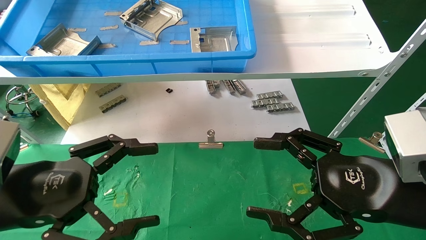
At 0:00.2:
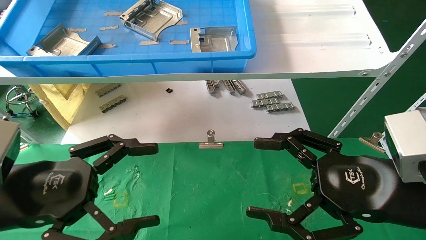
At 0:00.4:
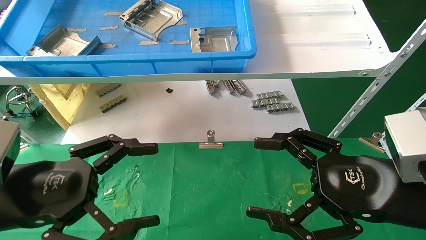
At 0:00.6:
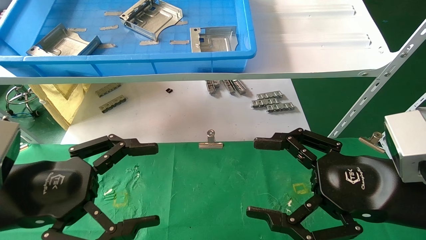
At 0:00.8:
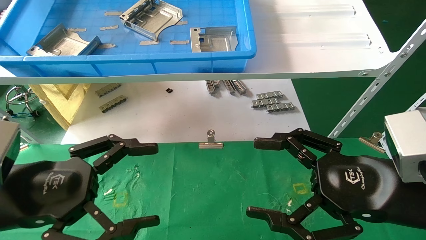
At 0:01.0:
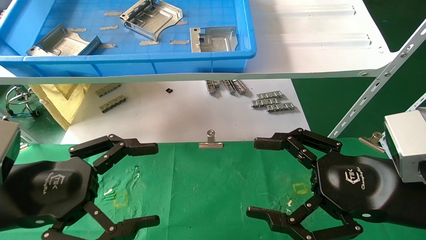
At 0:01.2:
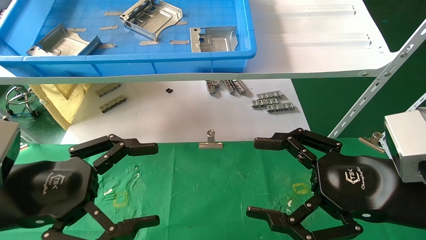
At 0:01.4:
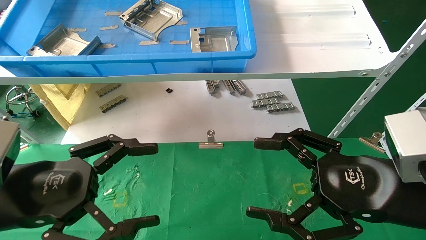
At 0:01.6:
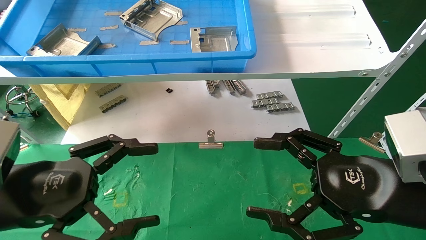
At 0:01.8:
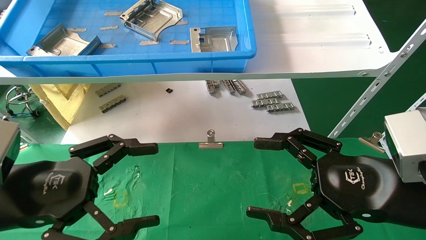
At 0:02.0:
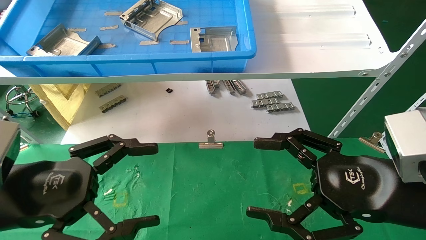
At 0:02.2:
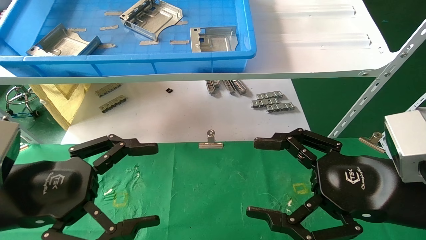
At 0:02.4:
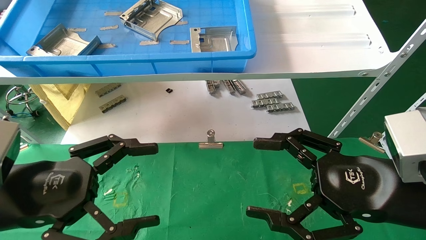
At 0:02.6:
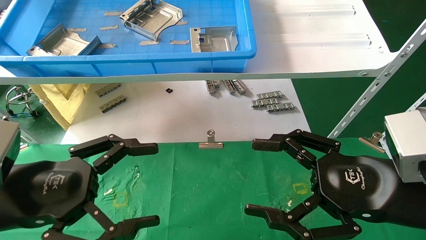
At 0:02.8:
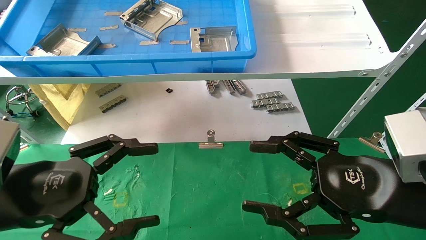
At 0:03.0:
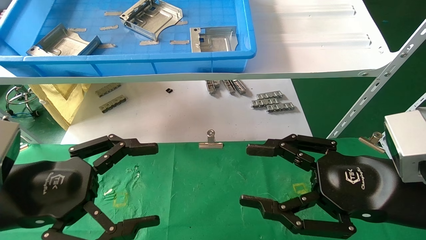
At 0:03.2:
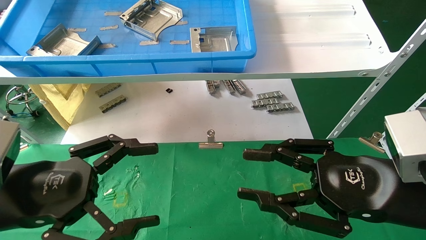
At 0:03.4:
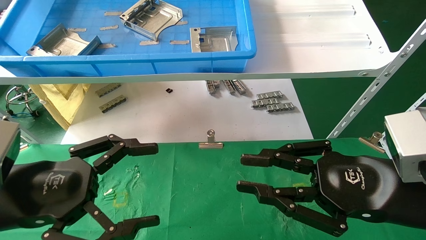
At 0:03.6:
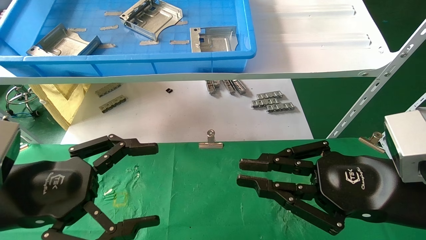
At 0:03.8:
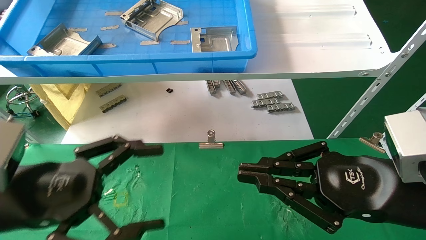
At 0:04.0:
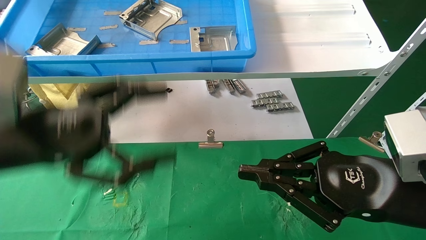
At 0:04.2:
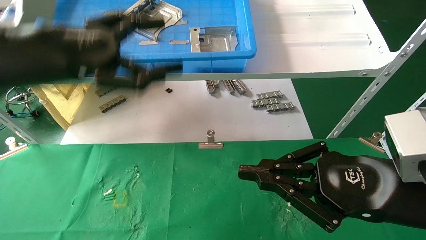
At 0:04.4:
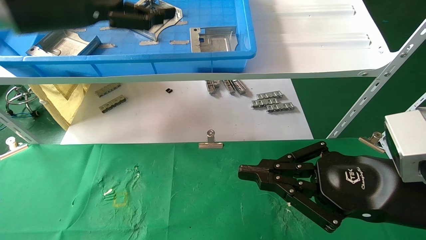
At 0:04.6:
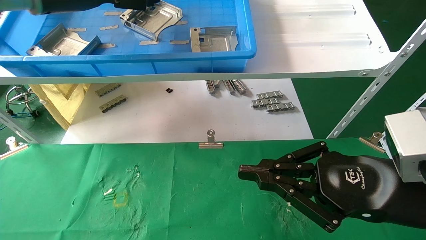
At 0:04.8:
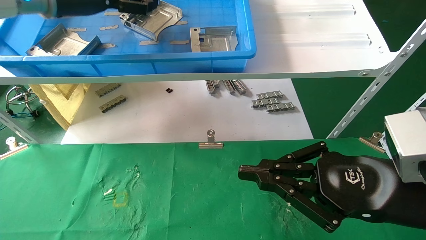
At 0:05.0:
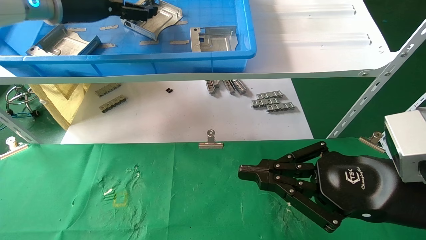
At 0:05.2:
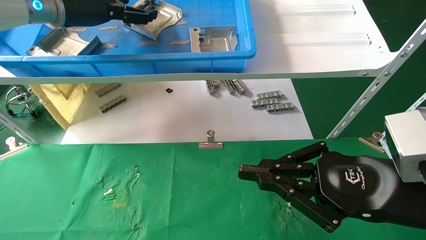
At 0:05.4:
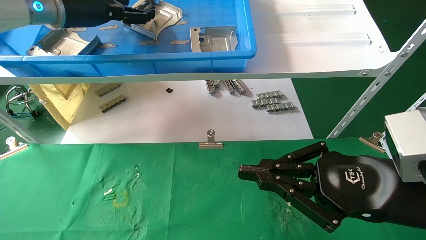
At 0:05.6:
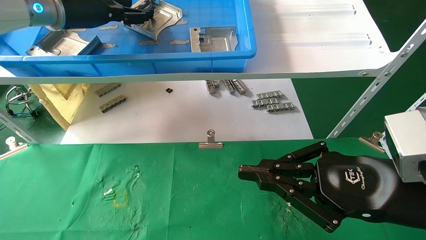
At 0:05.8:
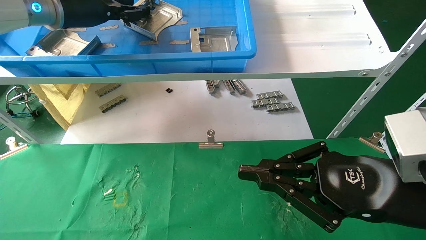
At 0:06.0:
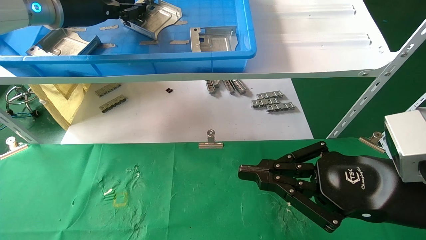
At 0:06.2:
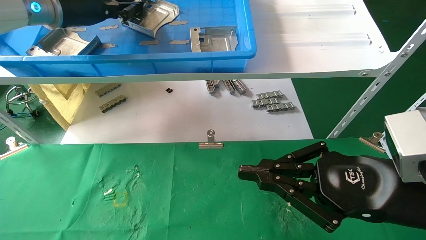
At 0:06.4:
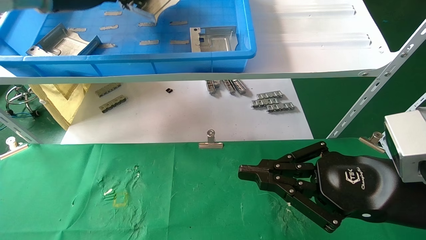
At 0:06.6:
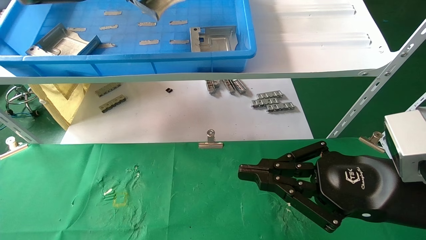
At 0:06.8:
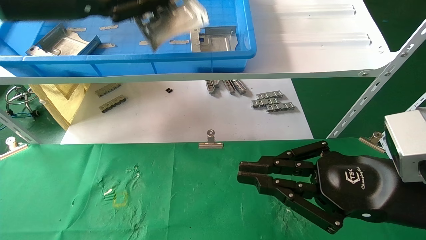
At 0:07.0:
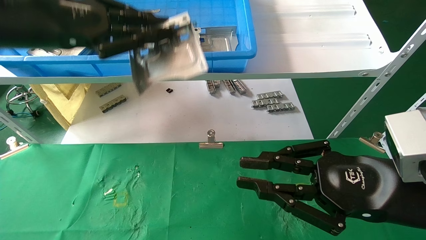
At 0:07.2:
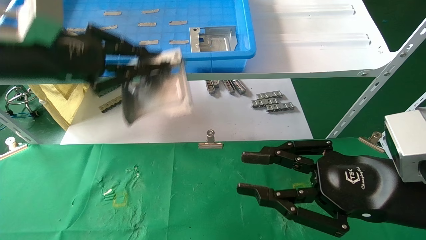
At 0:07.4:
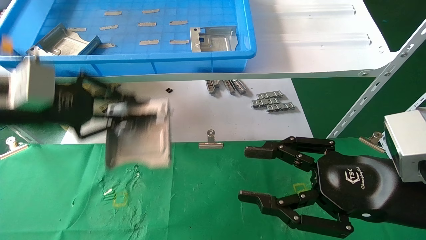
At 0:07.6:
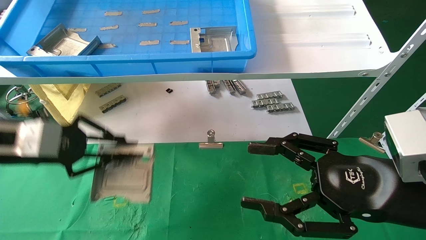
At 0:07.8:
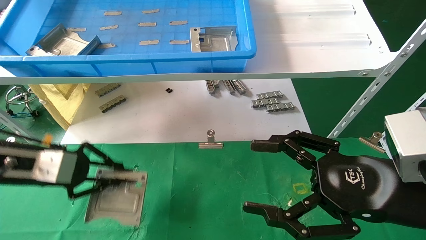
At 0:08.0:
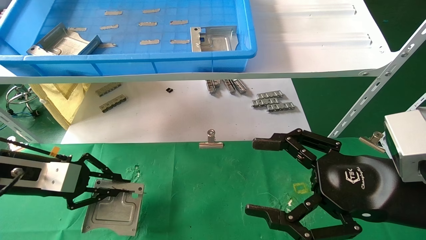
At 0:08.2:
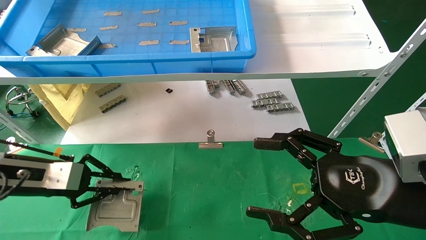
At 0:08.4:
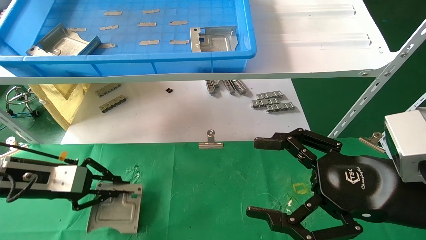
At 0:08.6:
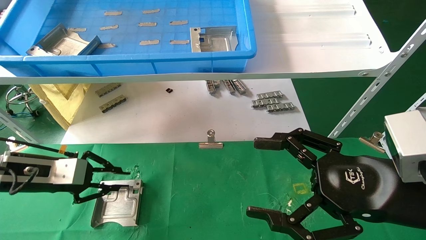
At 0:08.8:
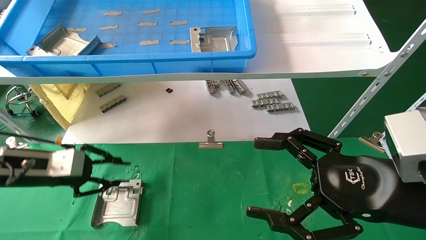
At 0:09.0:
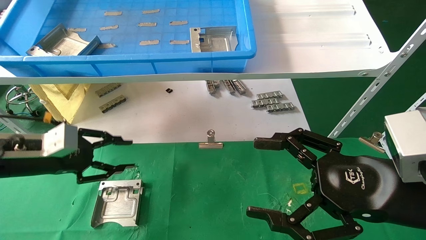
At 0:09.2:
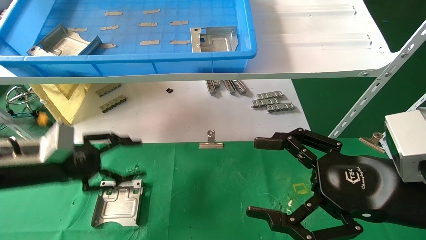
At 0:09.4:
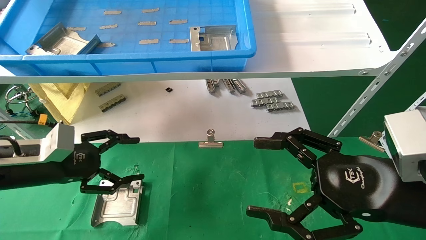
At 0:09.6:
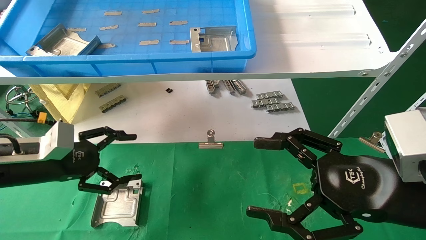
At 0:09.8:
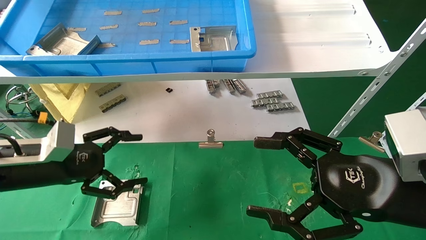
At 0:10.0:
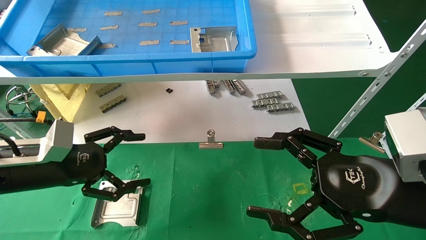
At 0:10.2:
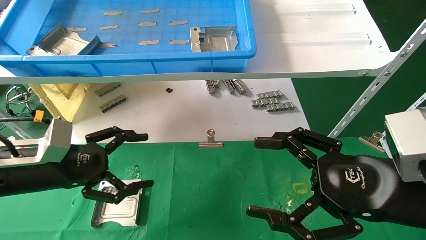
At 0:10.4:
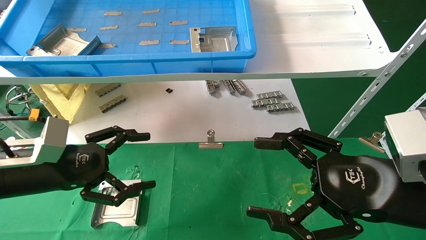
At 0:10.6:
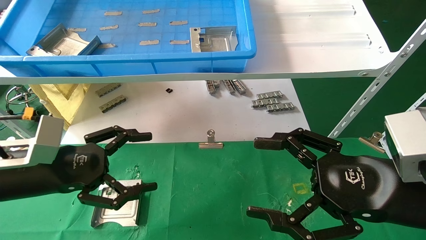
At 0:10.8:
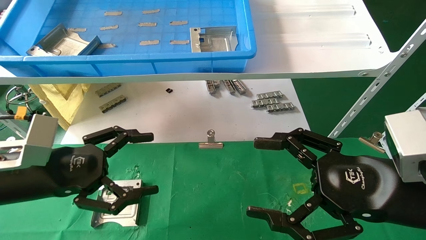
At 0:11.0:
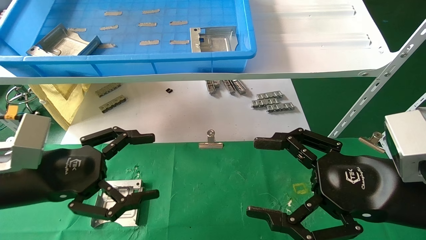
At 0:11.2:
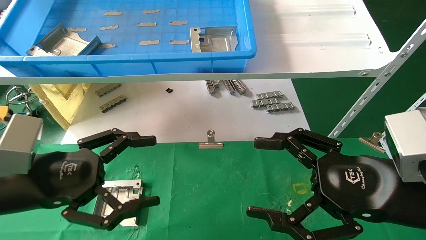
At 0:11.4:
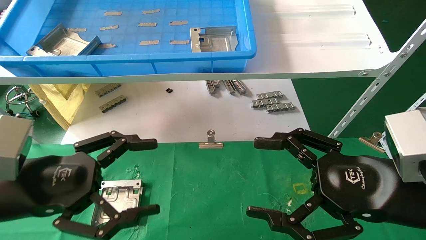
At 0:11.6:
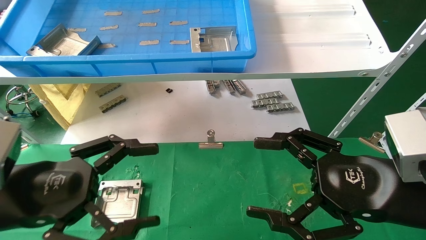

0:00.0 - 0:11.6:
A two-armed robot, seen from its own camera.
Task of the whole recording: use the mechanical arm to pick up the parts and place them on the table.
Step, 0:03.4 - 0:06.4: Pick up the hard drive bracket from the feeding area.
Step, 0:06.6 - 0:09.2: Place the hard drive bracket into the box.
0:00.0 - 0:02.8: Neither gripper changes place.
0:02.8 - 0:04.4: The right gripper closes its fingers. The left gripper moves upward and forward, approximately 25 cm.
0:04.4 - 0:05.8: The left gripper heads forward, covering about 10 cm, and closes.
0:05.8 - 0:07.2: The left gripper moves backward and downward, approximately 15 cm, and closes.
0:07.2 - 0:08.8: The left gripper heads downward, covering about 20 cm; the right gripper opens up.
0:08.8 - 0:10.2: The left gripper ends up approximately 5 cm from where it was, and opens up.
0:10.2 - 0:11.6: The left gripper goes approximately 10 cm backward.

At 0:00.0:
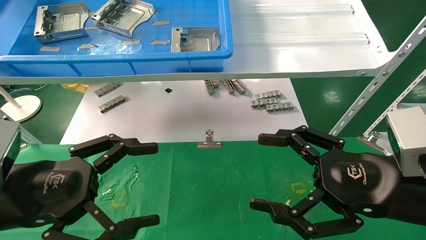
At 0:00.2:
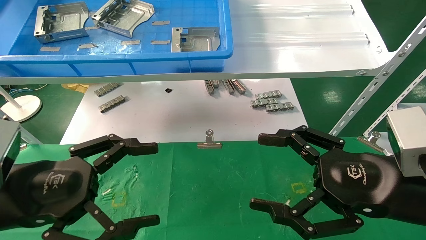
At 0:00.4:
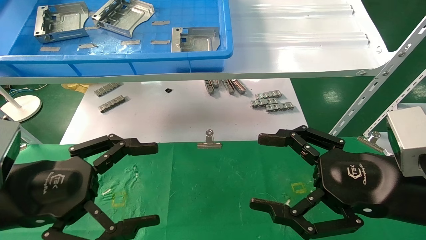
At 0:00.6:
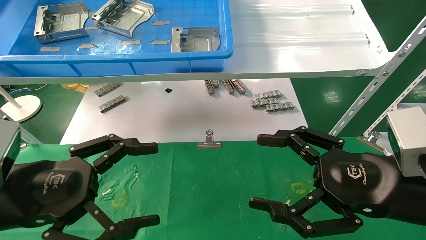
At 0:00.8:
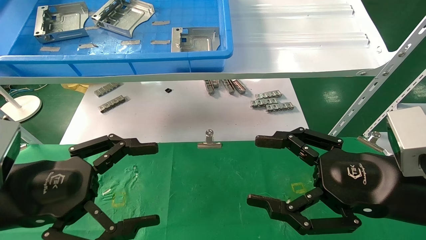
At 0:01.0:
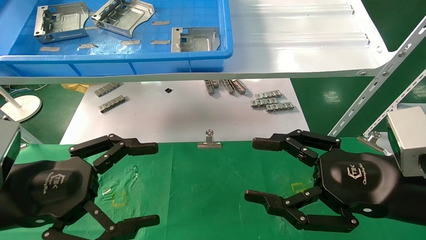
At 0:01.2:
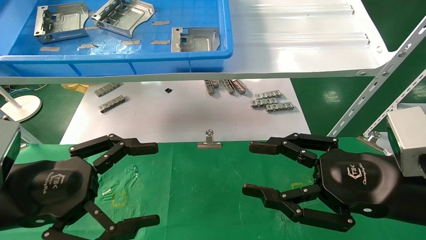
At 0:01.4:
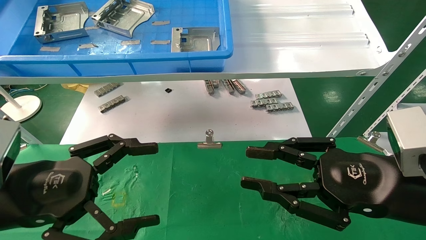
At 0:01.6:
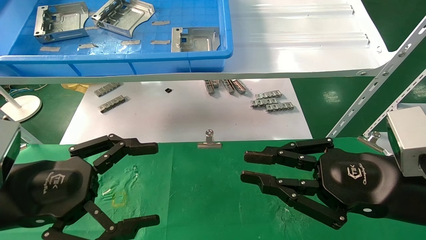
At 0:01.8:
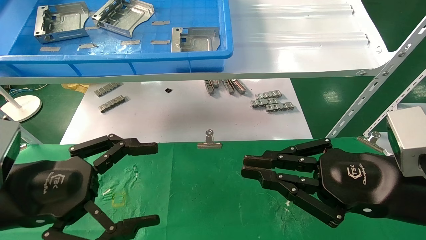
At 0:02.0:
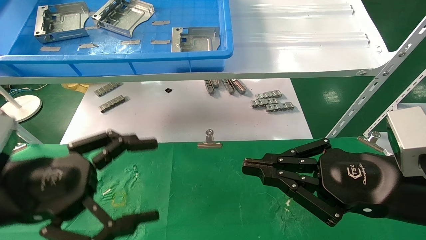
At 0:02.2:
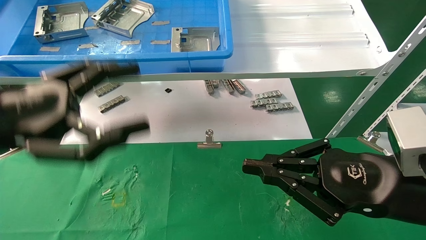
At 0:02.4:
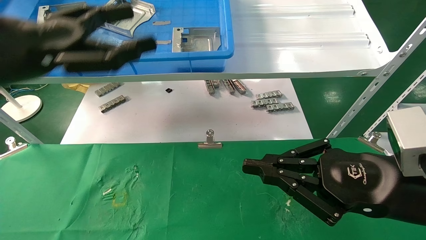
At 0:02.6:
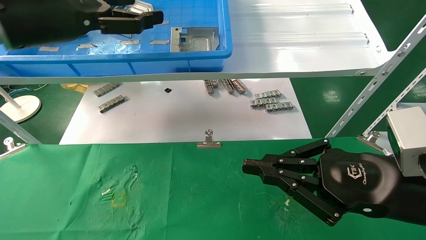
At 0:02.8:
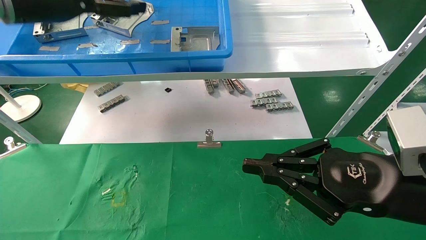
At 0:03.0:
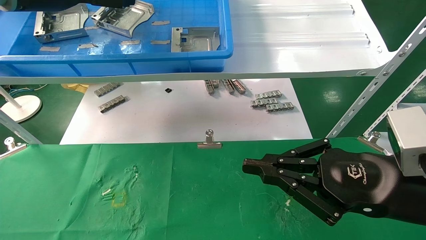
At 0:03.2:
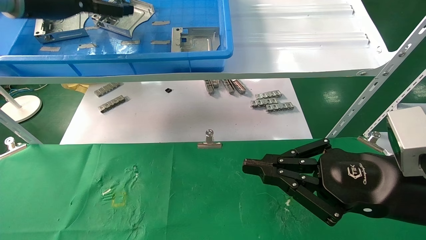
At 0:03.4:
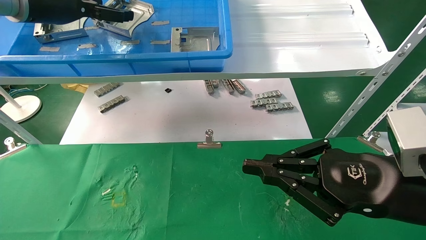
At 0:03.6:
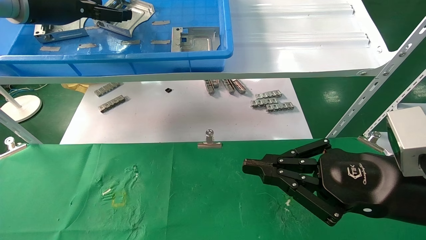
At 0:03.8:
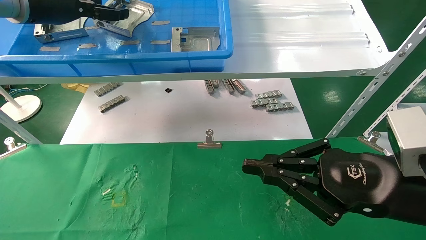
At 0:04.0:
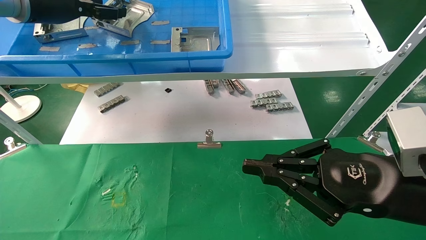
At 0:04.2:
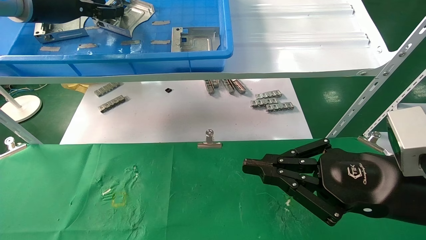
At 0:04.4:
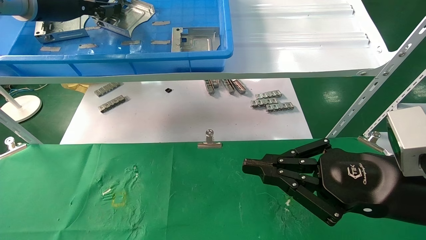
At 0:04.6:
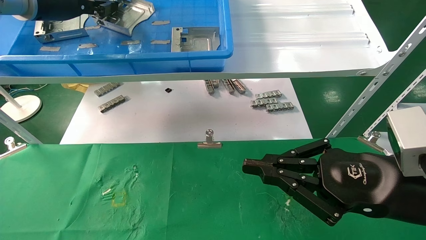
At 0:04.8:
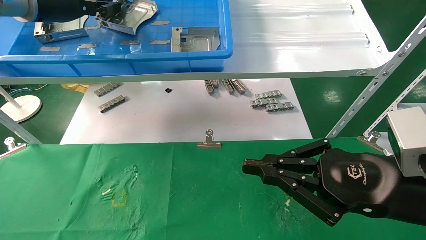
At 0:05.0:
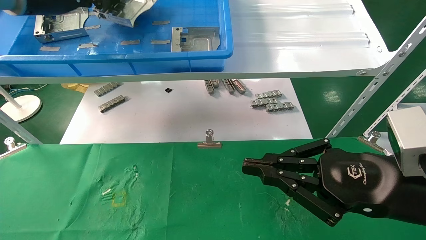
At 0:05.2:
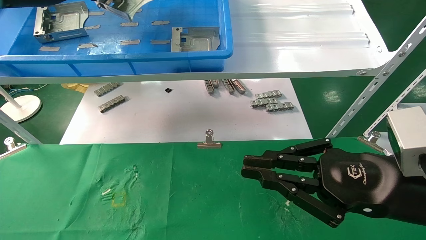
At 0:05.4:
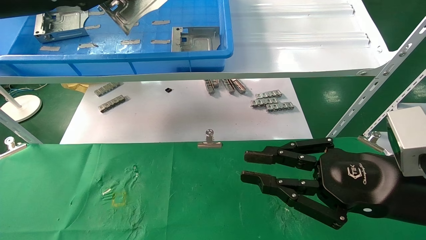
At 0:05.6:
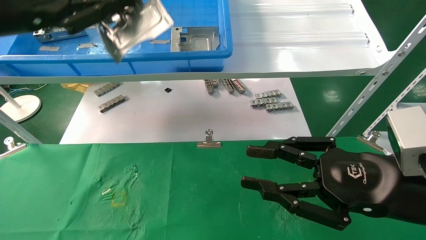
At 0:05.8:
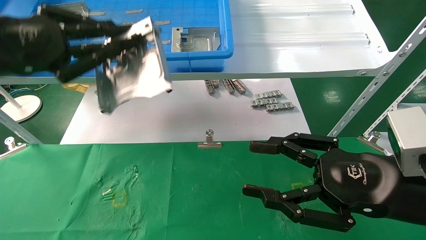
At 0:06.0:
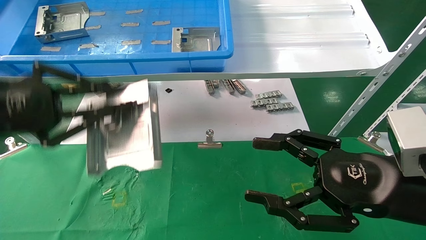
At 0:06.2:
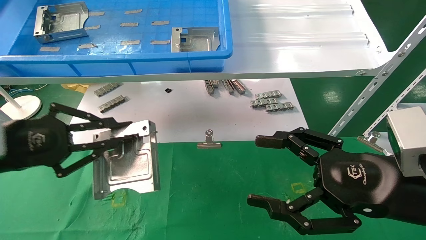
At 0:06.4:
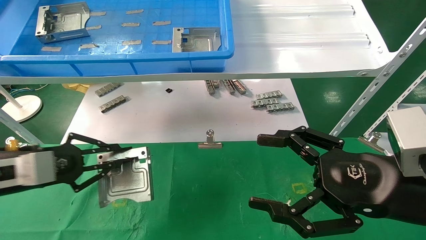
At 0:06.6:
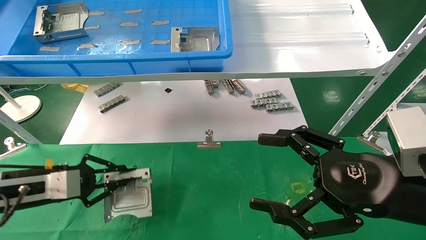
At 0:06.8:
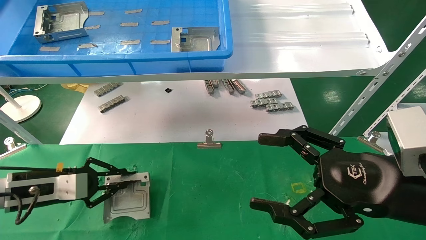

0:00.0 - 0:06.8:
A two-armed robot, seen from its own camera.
Task of the whole recording: use the mechanical arm to pick up the parts and place them on the table.
Step, 0:02.2 - 0:04.6: Pick up the hard drive bracket from the feeding area.
0:00.0 - 0:01.4: The right gripper closes up.
0:01.4 - 0:02.8: The right gripper closes its fingers; the left gripper moves upward and forward, some 30 cm.
0:02.8 - 0:04.0: The left gripper moves about 5 cm.
0:04.0 - 0:05.4: The left gripper shifts approximately 10 cm backward, and closes.
0:05.4 - 0:06.8: The right gripper opens its fingers. The left gripper travels downward by some 30 cm.
